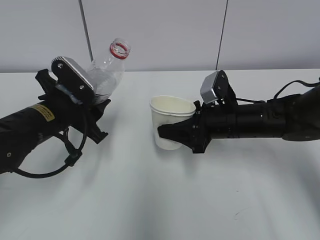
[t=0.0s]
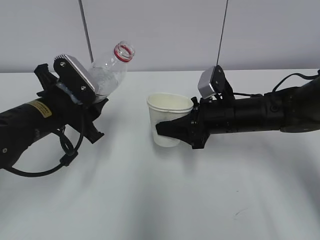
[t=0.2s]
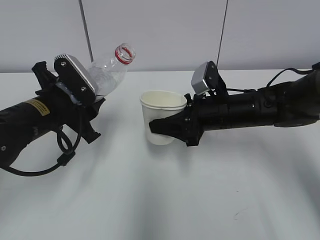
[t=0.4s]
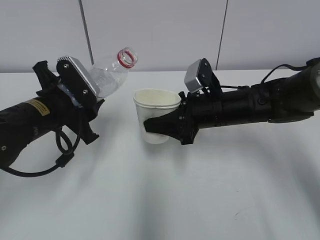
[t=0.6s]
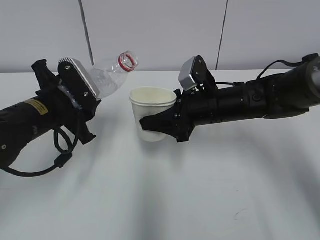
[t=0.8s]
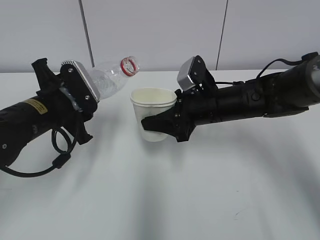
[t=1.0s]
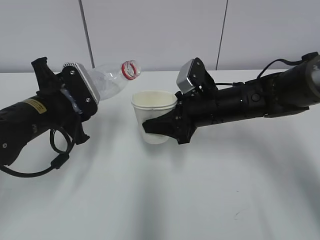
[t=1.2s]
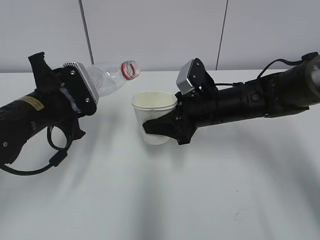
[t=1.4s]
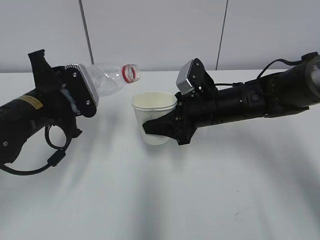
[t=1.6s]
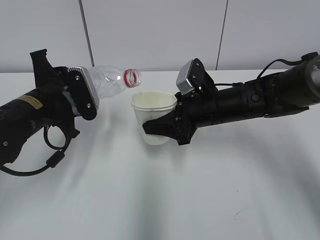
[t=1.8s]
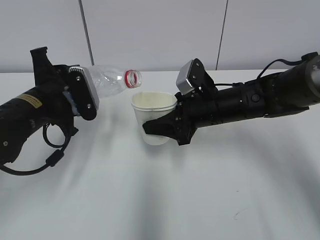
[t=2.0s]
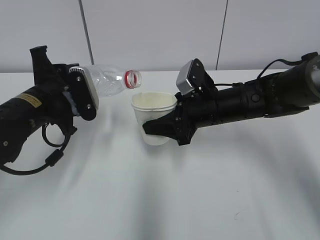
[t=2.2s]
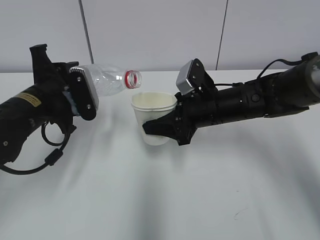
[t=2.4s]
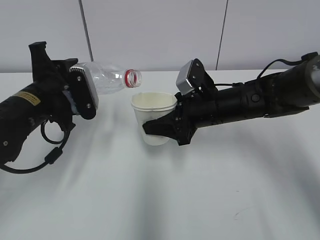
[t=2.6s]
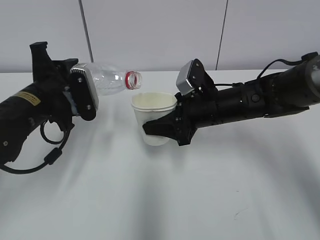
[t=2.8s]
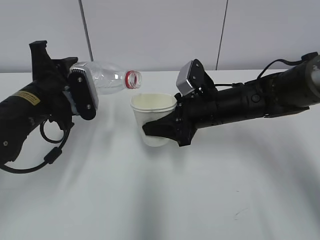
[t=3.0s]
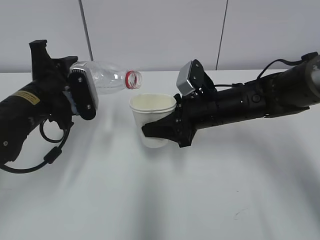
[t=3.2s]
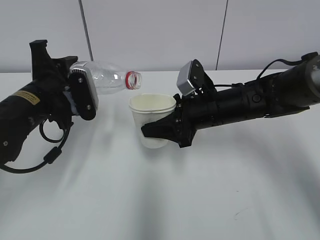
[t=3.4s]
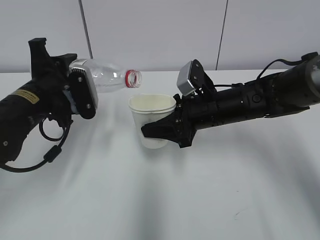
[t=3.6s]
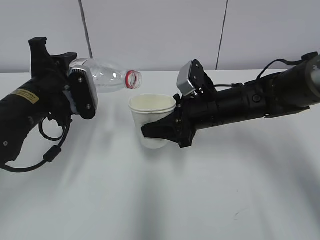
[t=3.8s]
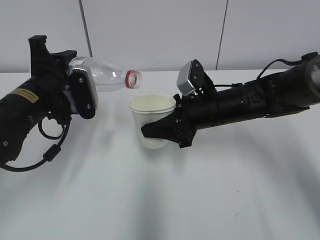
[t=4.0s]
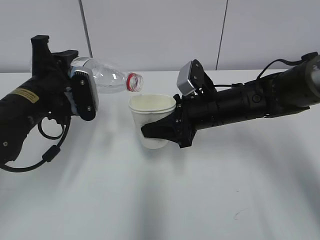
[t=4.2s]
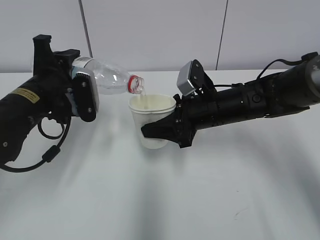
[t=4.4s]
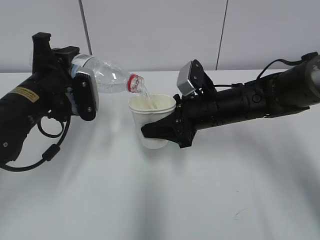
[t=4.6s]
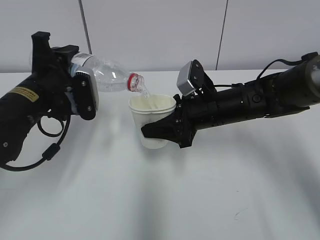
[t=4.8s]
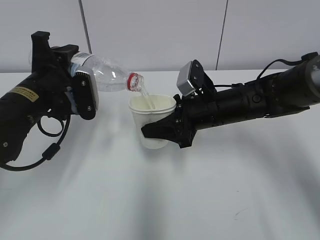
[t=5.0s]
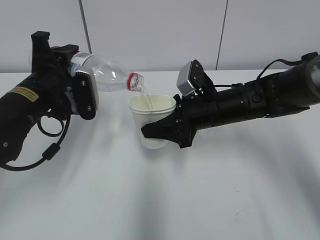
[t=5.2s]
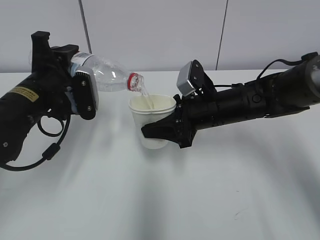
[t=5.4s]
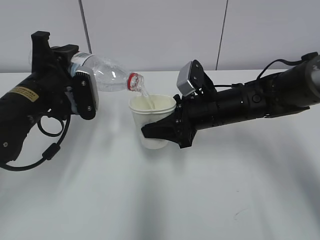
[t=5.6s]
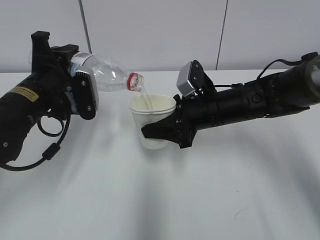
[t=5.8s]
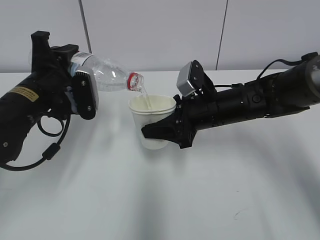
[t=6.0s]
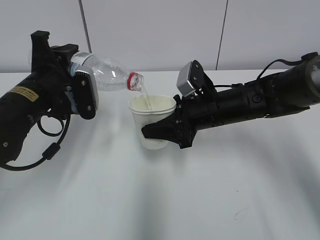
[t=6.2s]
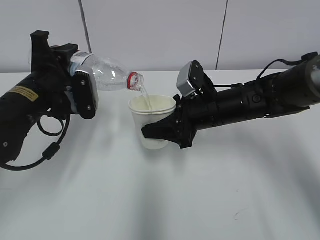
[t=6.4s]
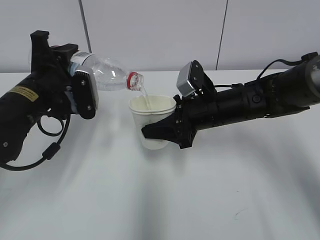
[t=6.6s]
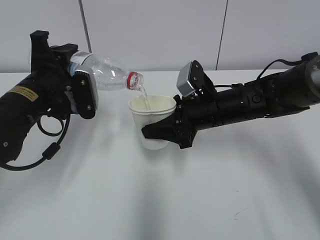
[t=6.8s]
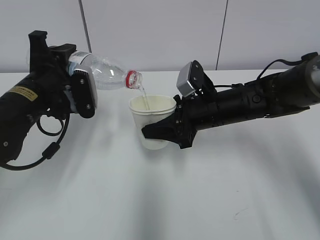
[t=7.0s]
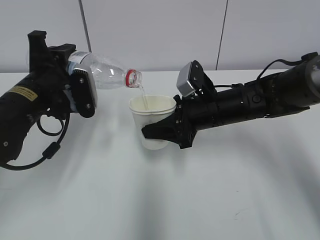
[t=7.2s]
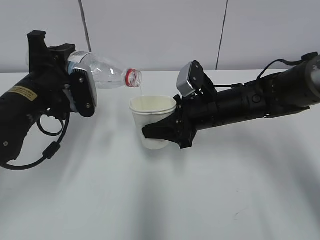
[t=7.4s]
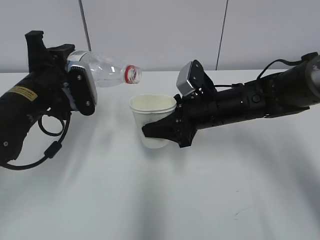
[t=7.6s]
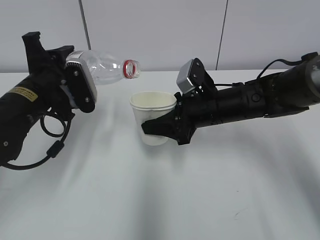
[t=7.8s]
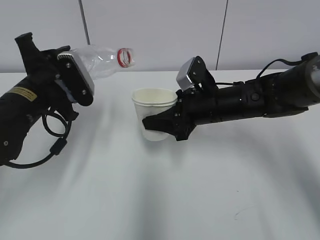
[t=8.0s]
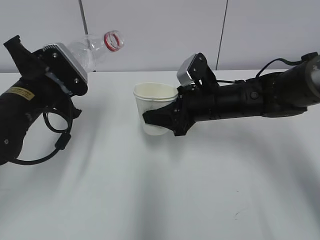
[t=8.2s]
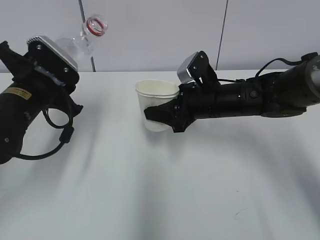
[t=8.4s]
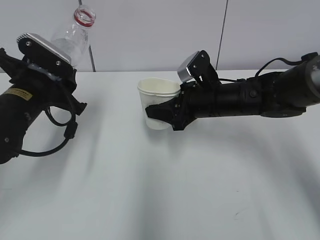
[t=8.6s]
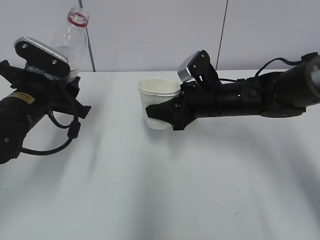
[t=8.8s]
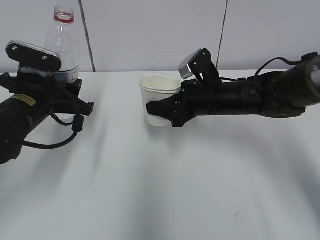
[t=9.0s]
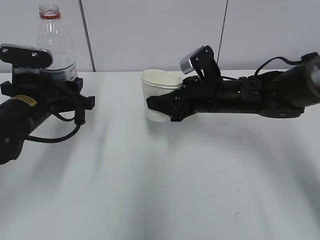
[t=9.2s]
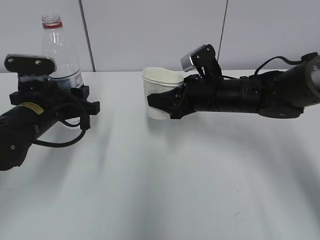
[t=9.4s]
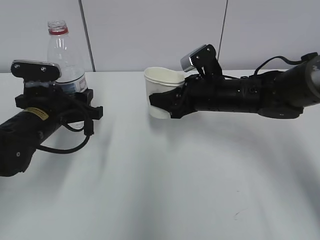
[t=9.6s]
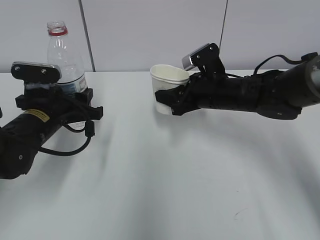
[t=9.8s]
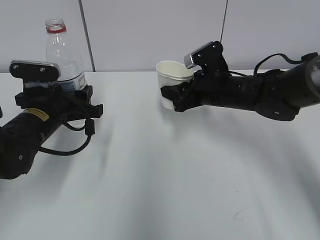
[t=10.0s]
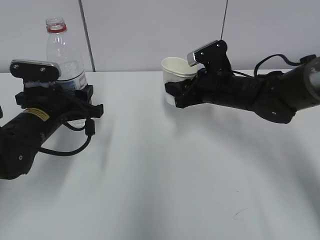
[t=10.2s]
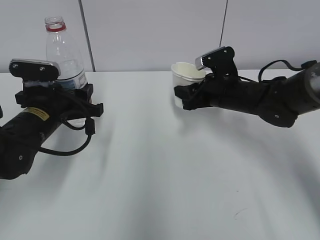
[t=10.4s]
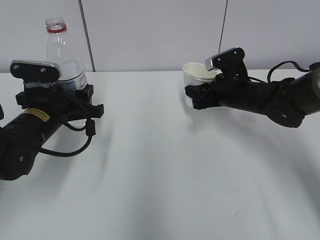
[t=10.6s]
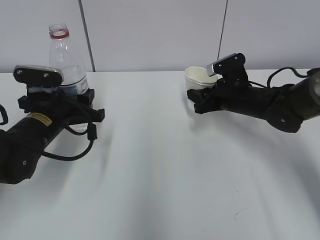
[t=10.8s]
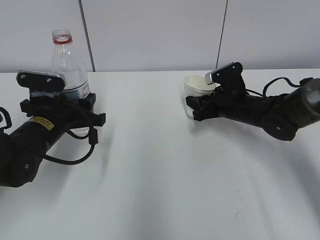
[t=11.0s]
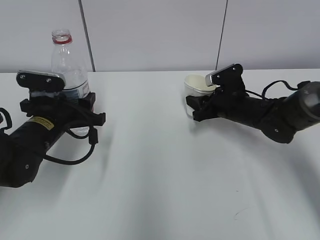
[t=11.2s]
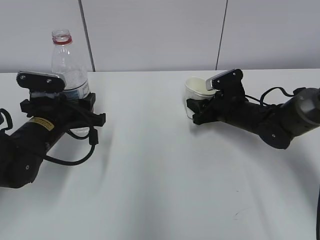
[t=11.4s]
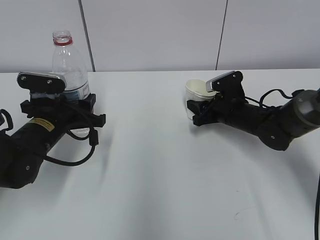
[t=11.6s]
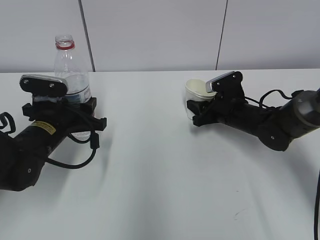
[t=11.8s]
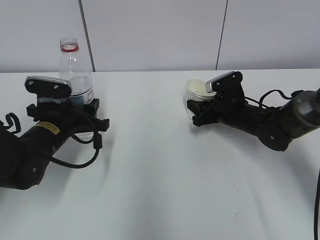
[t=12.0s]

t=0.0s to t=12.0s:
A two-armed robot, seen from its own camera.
Step, t=1.8s to t=4.2s: Fill water with the right hand.
Step, t=1.8s to t=4.2s: Pour water with the left hand.
Step, t=4.4s to t=5.8s: Collect water with the left hand.
Step, t=6.0s to t=11.0s: Place the paper cup with the right hand.
t=1.6s to t=3.0s: The grippers make only small movements.
t=3.0s to t=4.4s: The grippers make only small movements.
t=4.4s to t=6.0s: Both grippers stay about where they are.
t=6.0s to t=7.6s: The grippers make only small movements.
t=9.0s to t=10.4s: The right gripper changes place by approximately 5 cm.
t=10.4s to t=12.0s: The right gripper heads downward, covering some 5 cm.

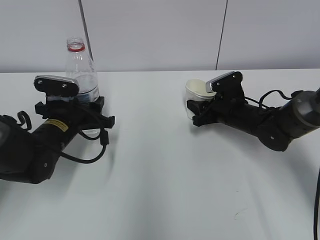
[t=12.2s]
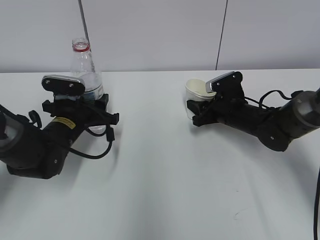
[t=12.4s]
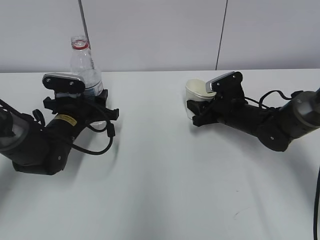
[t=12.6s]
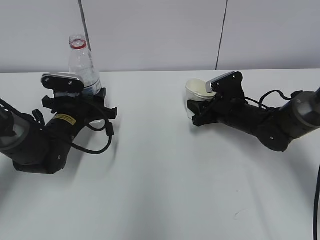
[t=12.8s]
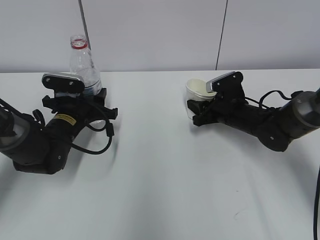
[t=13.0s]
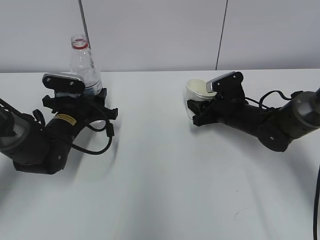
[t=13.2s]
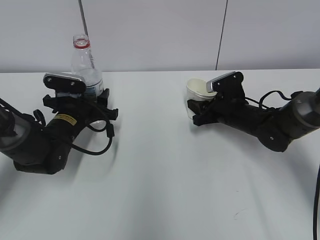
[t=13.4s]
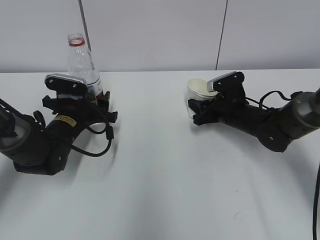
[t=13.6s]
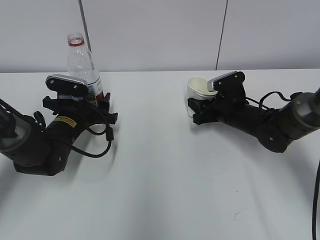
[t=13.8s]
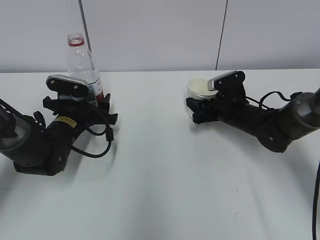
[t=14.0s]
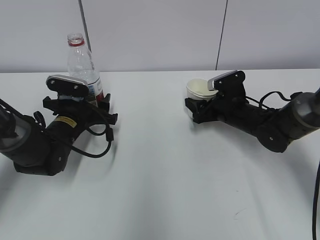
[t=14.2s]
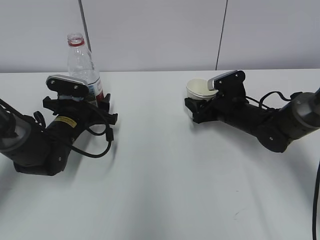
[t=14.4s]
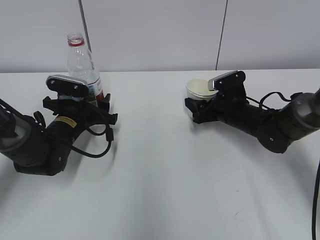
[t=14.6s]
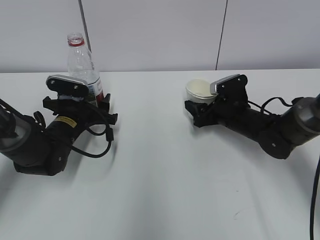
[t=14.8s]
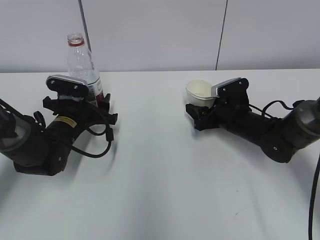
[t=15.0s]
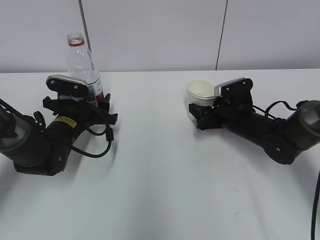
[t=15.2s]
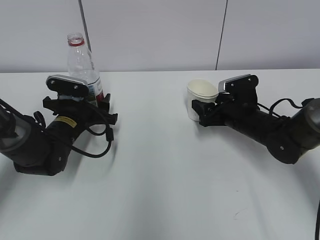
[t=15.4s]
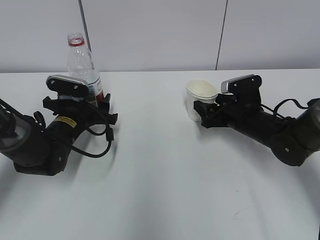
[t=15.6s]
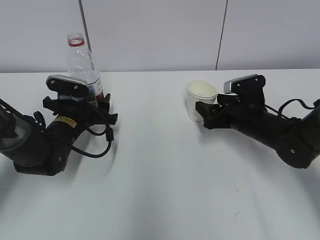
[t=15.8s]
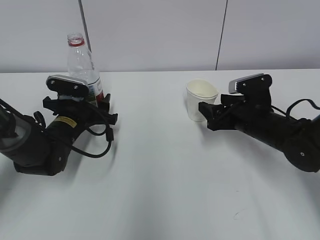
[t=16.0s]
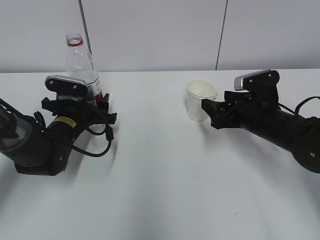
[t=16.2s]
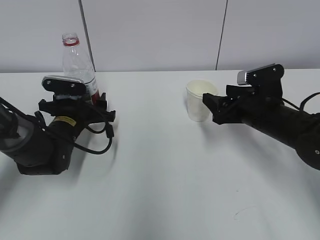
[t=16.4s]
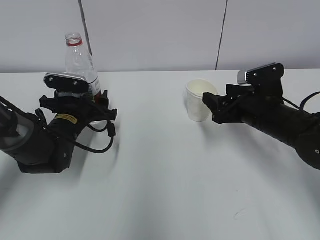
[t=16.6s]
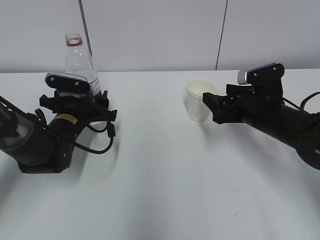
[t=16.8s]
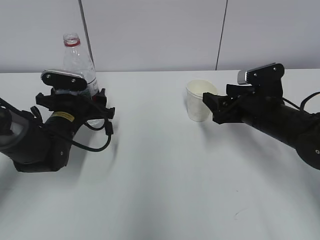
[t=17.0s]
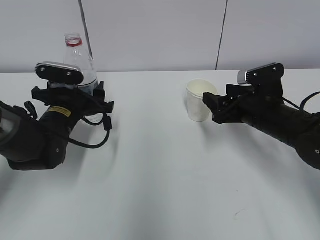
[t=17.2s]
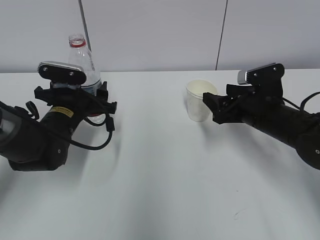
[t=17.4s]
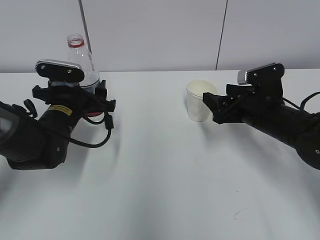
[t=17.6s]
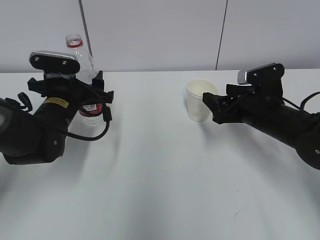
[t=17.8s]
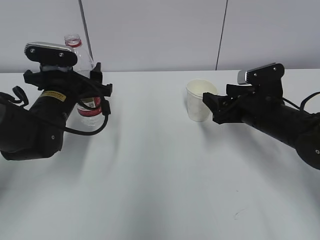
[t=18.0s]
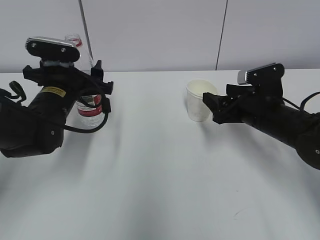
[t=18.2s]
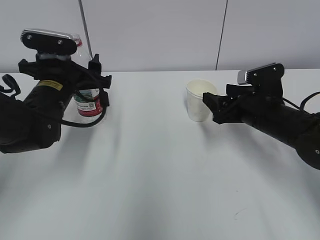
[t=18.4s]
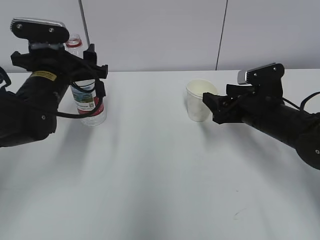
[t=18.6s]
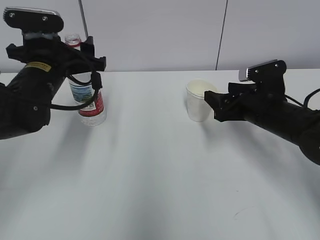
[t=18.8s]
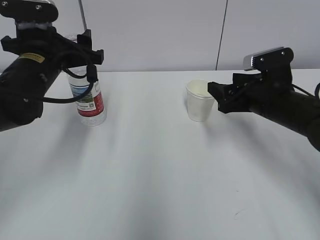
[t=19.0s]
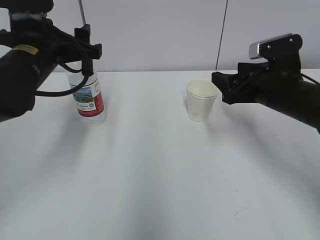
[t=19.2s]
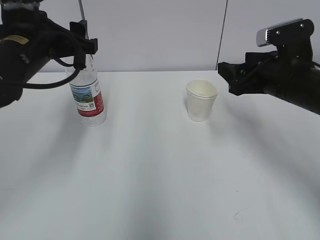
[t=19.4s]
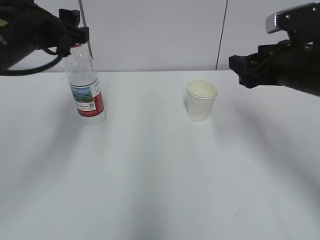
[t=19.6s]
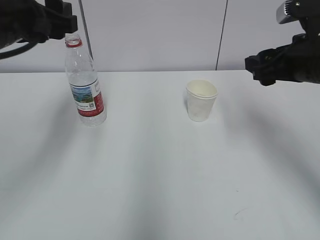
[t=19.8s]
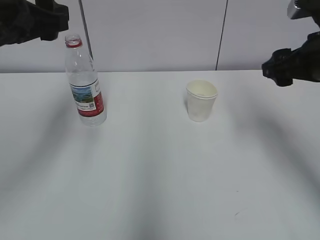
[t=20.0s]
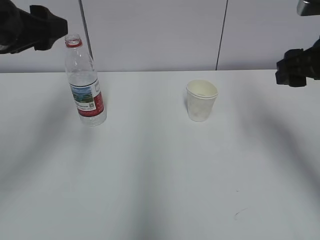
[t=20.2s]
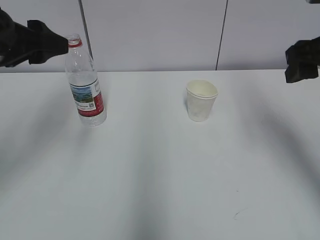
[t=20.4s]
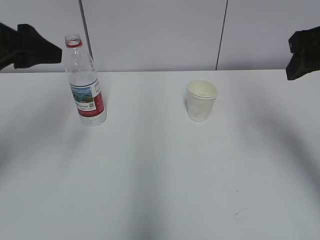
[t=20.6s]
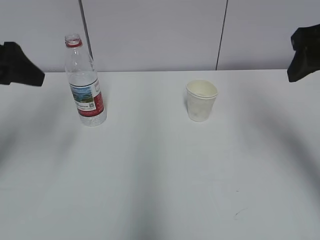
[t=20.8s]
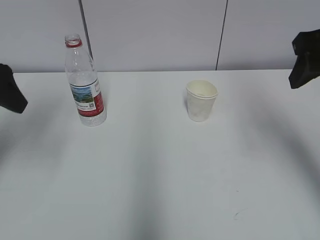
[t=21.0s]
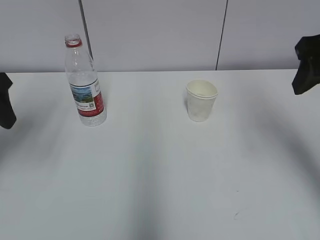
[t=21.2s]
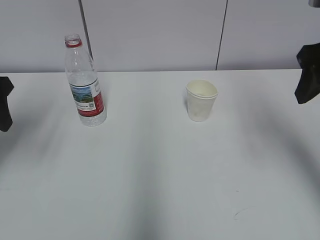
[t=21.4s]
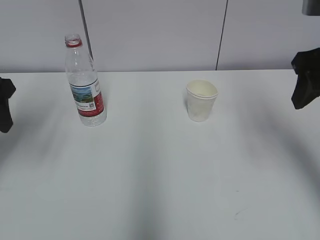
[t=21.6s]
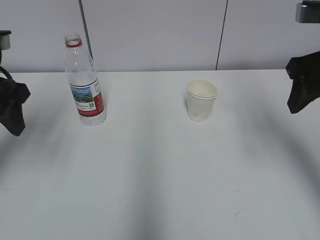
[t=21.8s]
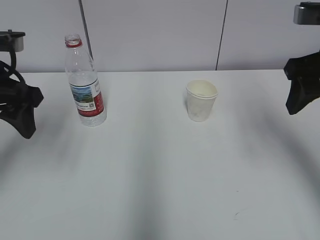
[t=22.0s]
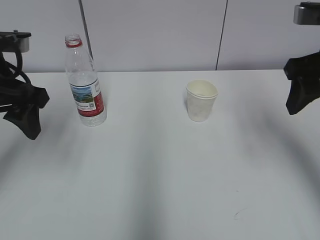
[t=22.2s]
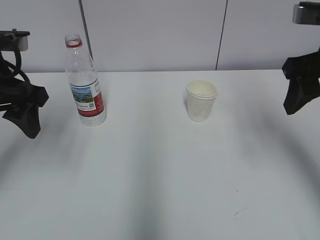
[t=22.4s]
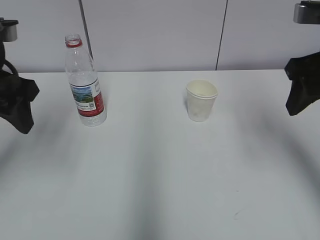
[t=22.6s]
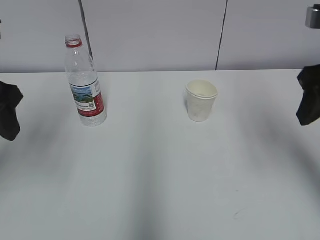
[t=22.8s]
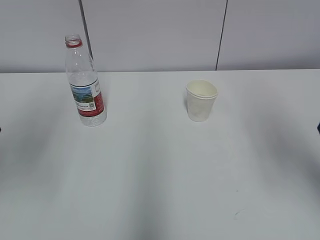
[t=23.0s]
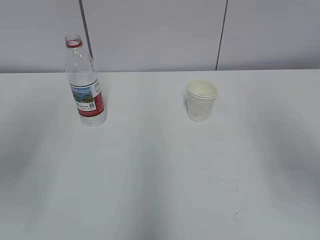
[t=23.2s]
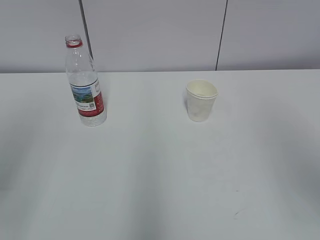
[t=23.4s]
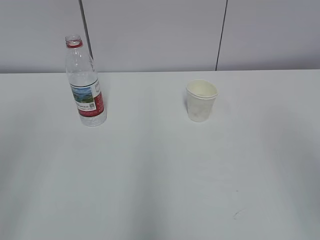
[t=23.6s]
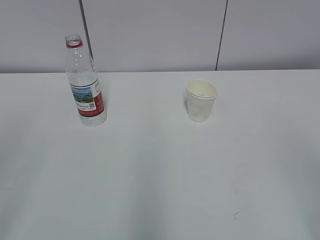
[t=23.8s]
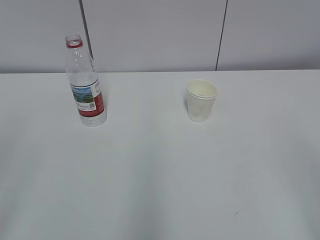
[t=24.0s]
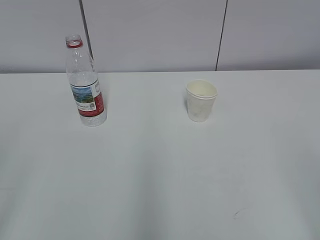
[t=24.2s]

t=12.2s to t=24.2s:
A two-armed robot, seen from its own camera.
t=12.2s to t=13.8s: The left gripper opens its fingers.
t=13.8s to t=15.2s: The right gripper opens.
t=15.2s to t=16.6s: The right gripper heads upward and backward, covering some 10 cm.
t=16.6s to t=18.2s: The left gripper shifts approximately 10 cm upward.
t=18.2s to t=19.8s: The left gripper shifts approximately 15 cm upward and backward, while the right gripper shifts some 15 cm upward.
t=19.8s to t=21.2s: The left gripper travels to the left by roughly 10 cm. The right gripper shifts about 10 cm upward.
t=21.2s to t=22.6s: The left gripper moves roughly 5 cm.
t=22.6s to t=24.2s: Both grippers move backward, about 25 cm.
